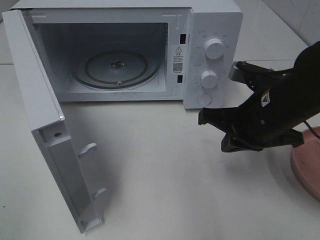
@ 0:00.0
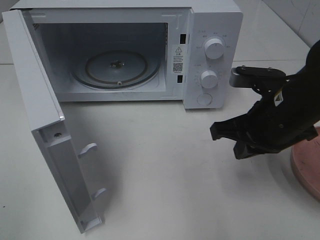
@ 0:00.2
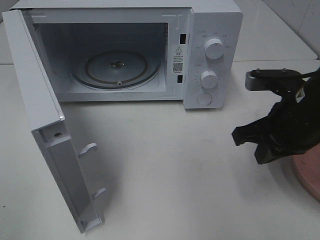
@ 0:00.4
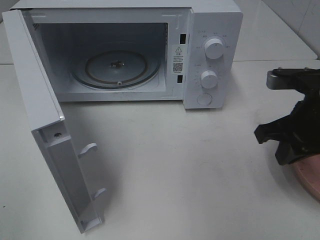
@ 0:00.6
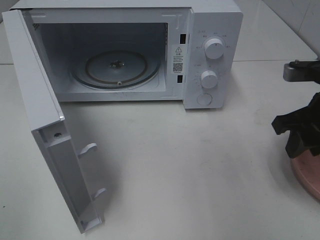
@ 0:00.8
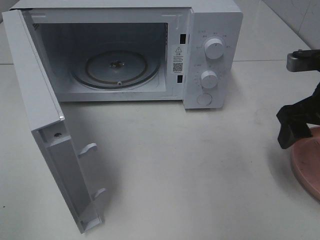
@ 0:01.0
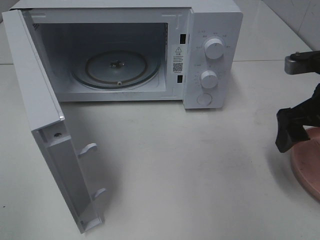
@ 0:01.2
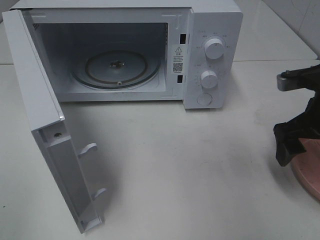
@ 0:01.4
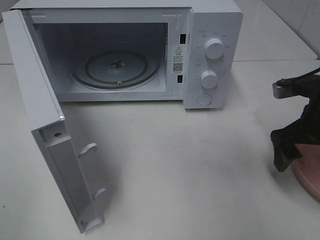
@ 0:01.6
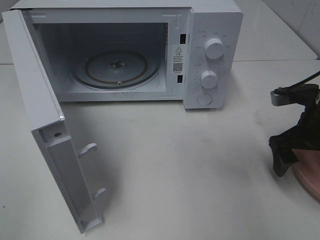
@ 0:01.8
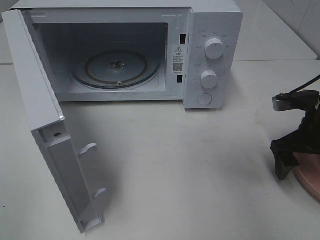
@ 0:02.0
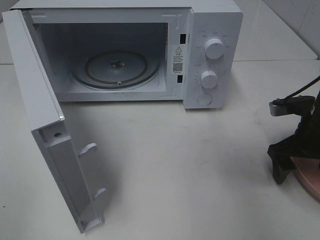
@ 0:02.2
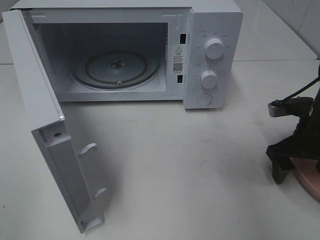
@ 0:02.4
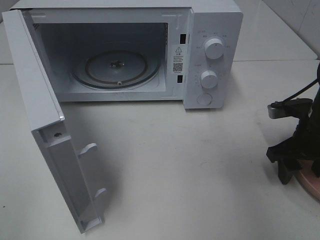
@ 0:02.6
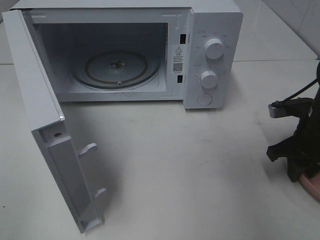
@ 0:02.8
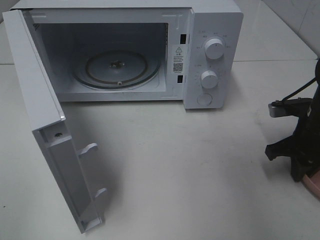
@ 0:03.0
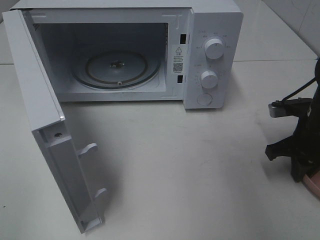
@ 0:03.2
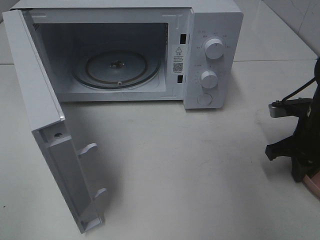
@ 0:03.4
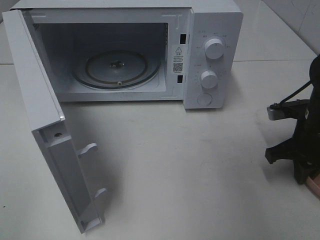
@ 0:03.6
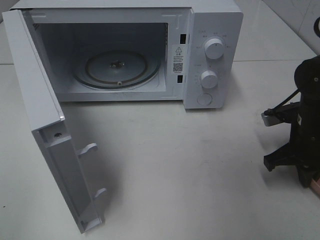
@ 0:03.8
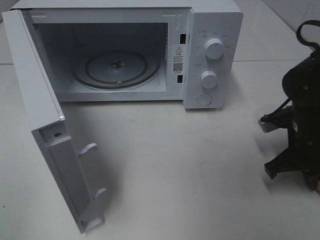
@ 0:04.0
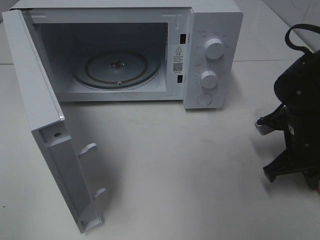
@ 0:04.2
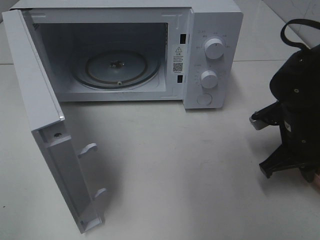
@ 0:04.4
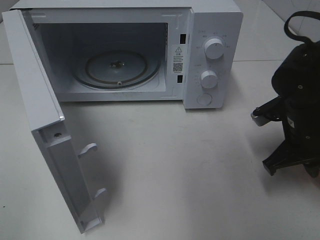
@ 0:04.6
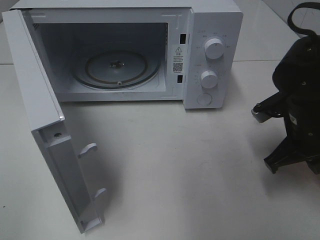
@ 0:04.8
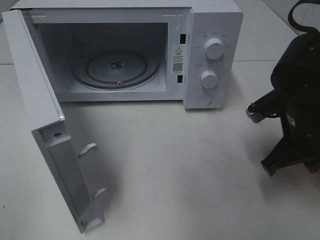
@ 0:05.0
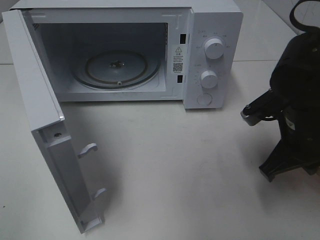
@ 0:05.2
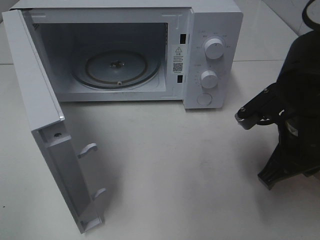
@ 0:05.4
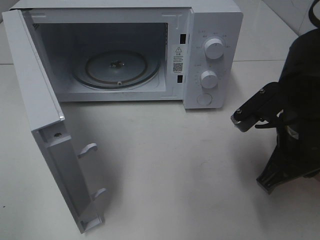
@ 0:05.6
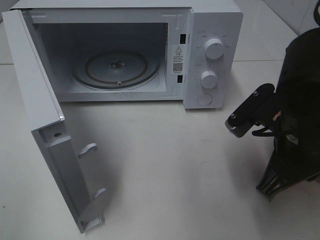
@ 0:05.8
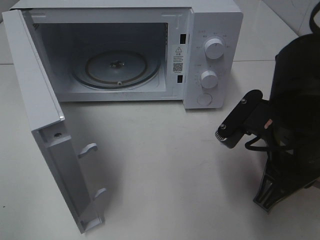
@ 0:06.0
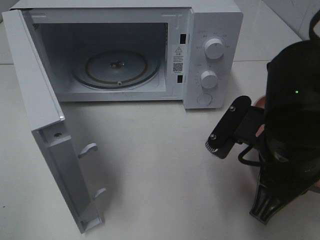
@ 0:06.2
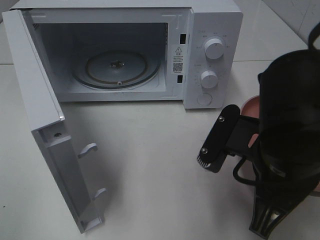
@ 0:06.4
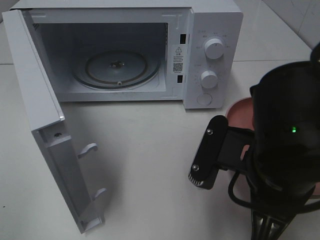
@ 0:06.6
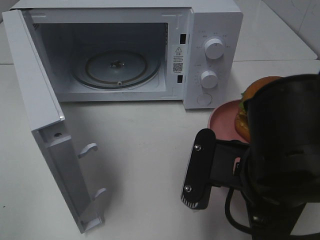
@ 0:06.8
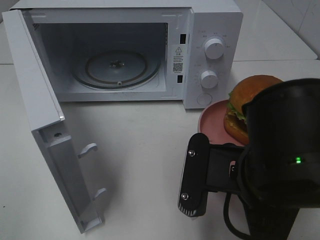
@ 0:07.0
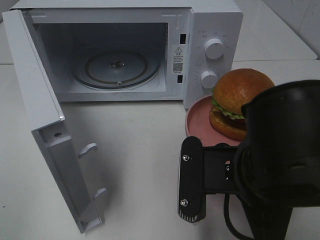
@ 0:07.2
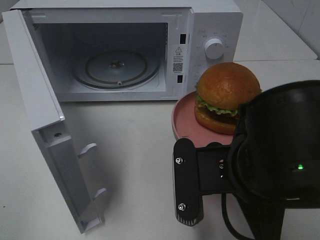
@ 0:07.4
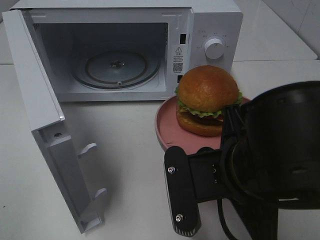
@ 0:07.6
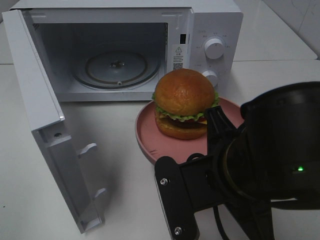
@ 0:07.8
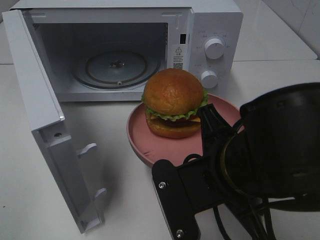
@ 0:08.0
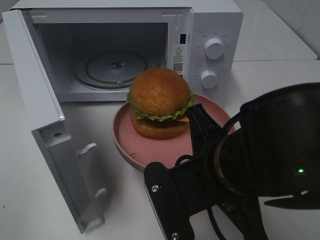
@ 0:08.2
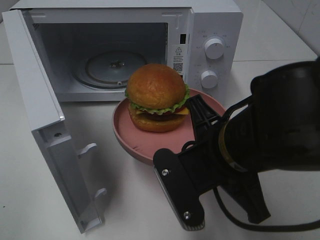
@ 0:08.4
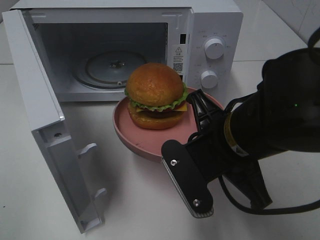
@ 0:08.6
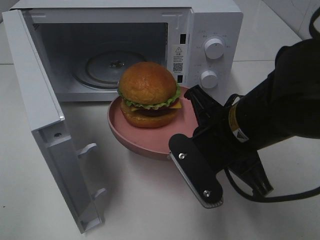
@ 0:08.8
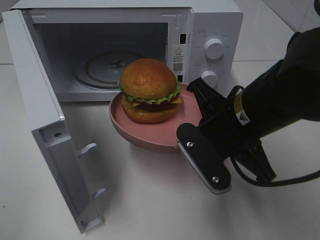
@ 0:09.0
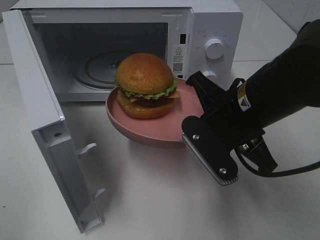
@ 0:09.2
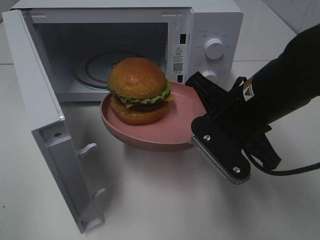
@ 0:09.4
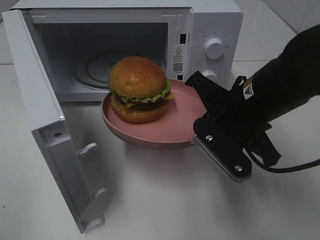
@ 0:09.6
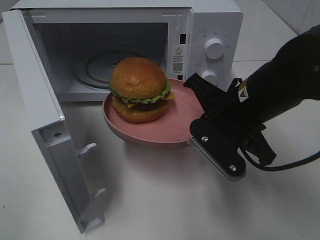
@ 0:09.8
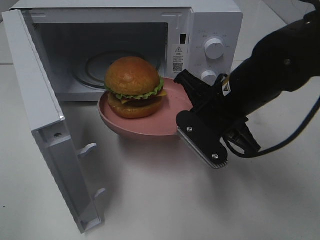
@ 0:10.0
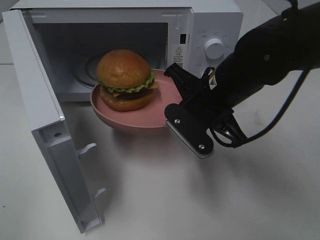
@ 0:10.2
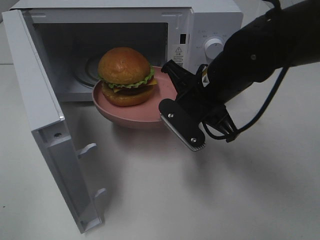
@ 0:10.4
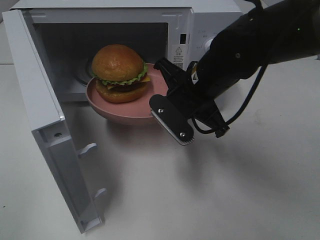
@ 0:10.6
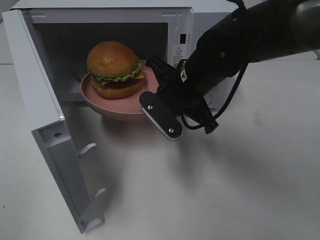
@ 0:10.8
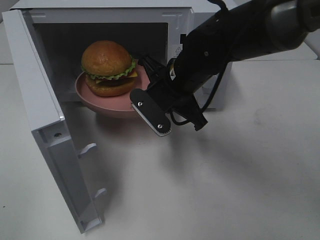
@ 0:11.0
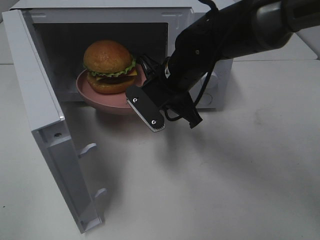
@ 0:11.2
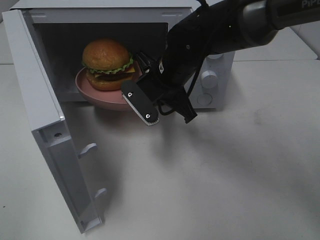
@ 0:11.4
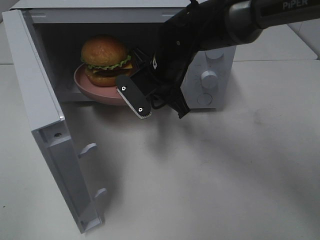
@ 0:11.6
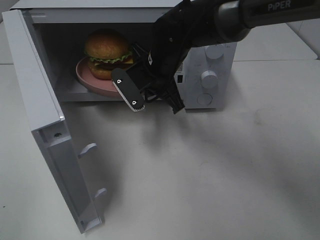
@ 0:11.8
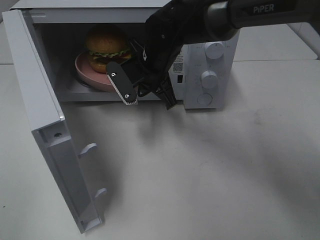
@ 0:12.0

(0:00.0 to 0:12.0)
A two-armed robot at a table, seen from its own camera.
Task of the whole recording: Heat the burger.
Step, 0:00.0 - 0:04.6: Right hand: grab the plate with the hamburger.
0:00.0 - 0:01.6: The right gripper travels to the right by approximately 10 cm, and opens its fingers.
0:01.6 - 0:03.0: The right gripper shifts roughly 5 cm downward, and closes.
0:03.0 - 0:04.4: The right gripper shifts by approximately 5 cm.
0:04.4 - 0:06.0: The right gripper travels backward, to the left and upward by roughly 15 cm.
0:06.0 - 0:07.6: The right gripper shifts roughly 5 cm to the left.
0:07.6 - 0:09.0: The right gripper moves forward, some 10 cm.
0:09.0 - 0:10.4: The right gripper shifts about 10 cm forward.
0:10.4 - 0:12.0: The right gripper travels forward and to the left by some 15 cm.

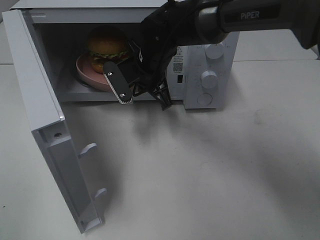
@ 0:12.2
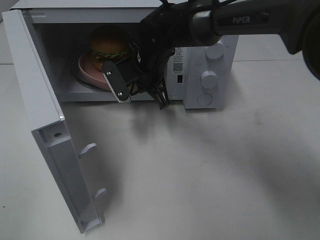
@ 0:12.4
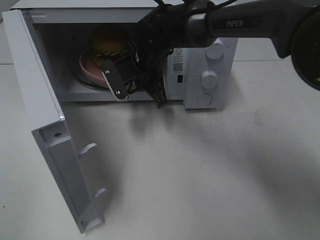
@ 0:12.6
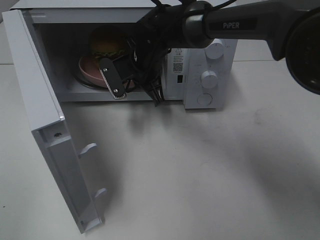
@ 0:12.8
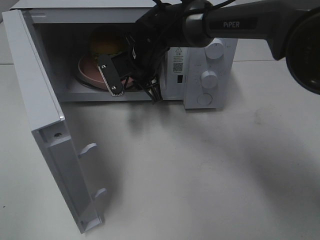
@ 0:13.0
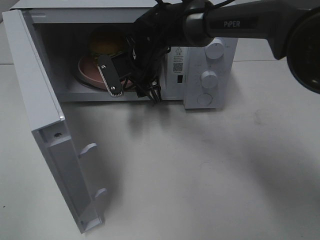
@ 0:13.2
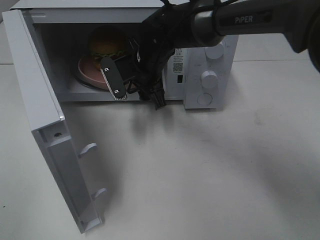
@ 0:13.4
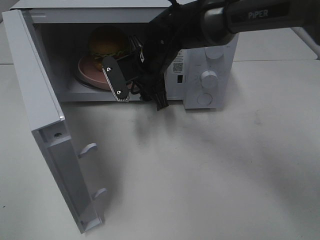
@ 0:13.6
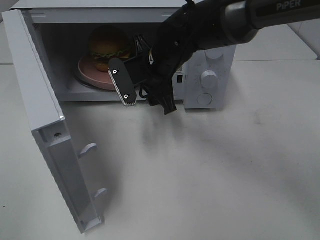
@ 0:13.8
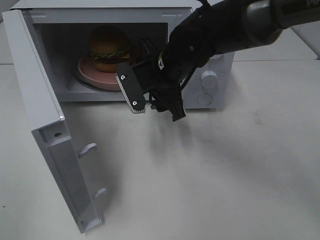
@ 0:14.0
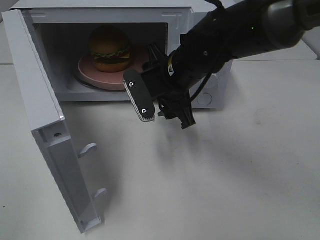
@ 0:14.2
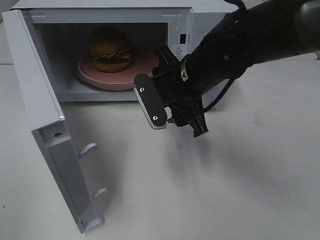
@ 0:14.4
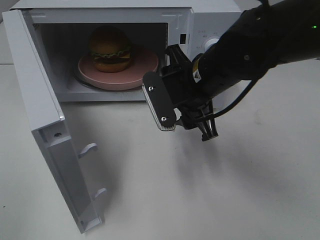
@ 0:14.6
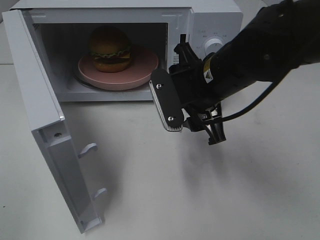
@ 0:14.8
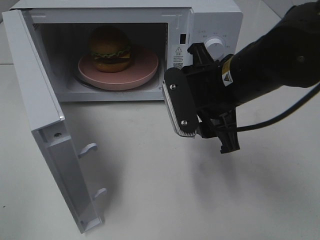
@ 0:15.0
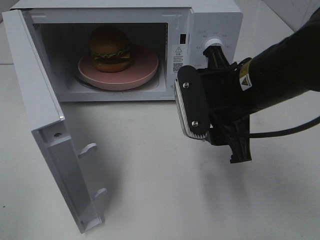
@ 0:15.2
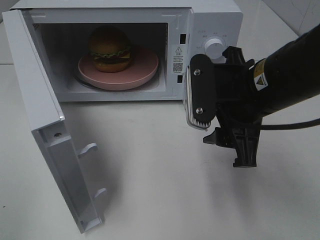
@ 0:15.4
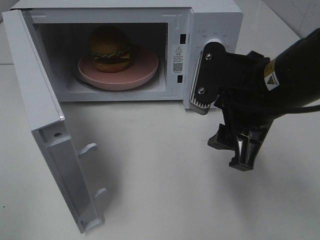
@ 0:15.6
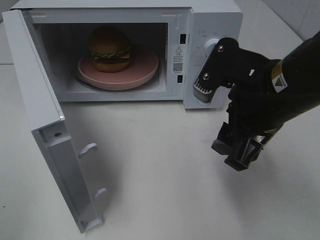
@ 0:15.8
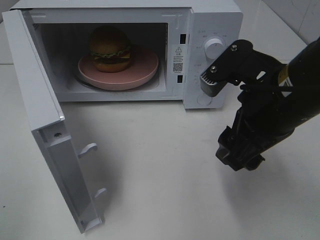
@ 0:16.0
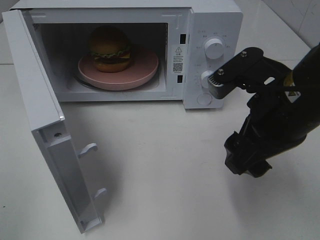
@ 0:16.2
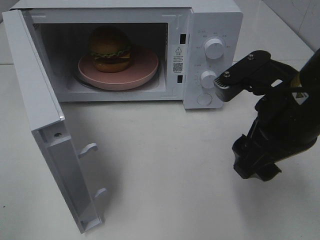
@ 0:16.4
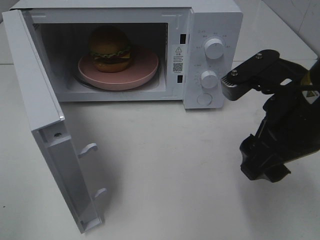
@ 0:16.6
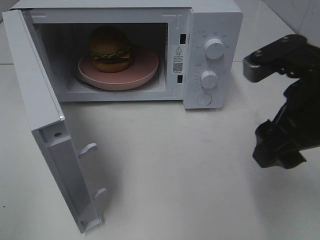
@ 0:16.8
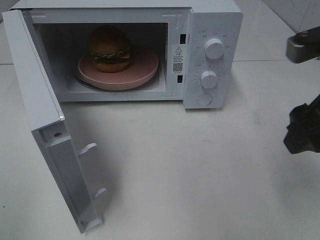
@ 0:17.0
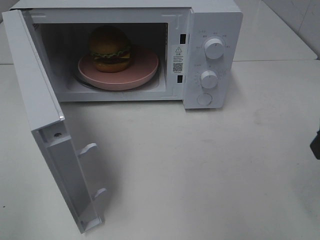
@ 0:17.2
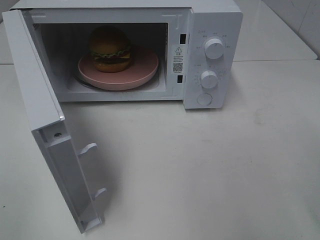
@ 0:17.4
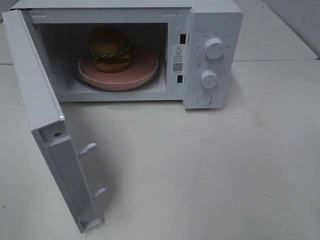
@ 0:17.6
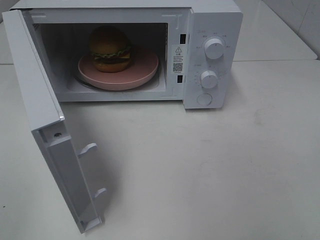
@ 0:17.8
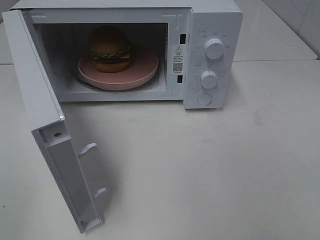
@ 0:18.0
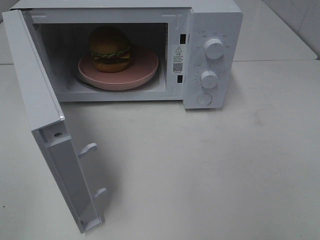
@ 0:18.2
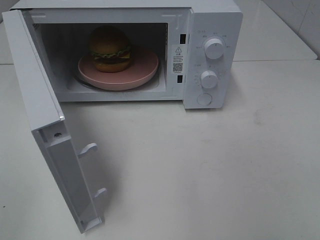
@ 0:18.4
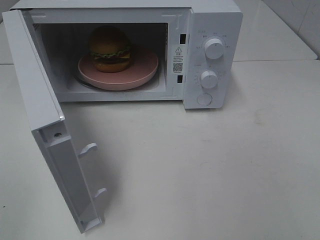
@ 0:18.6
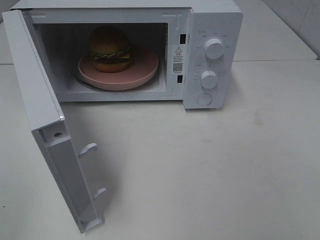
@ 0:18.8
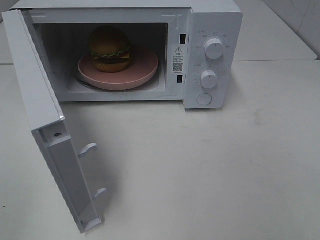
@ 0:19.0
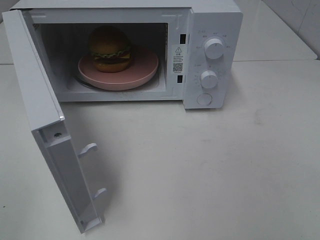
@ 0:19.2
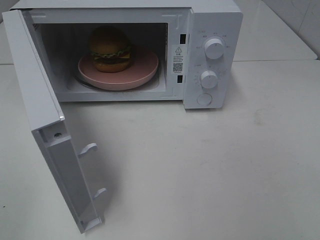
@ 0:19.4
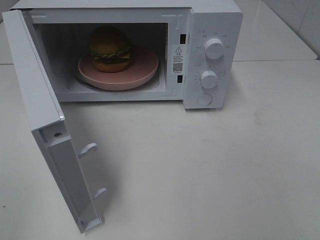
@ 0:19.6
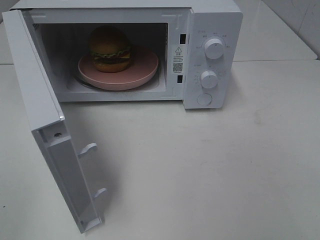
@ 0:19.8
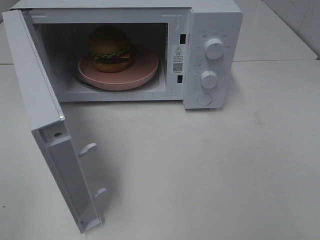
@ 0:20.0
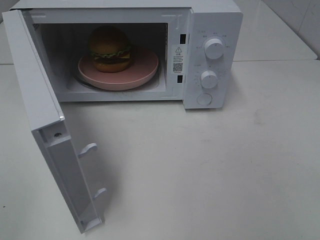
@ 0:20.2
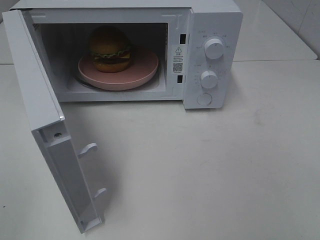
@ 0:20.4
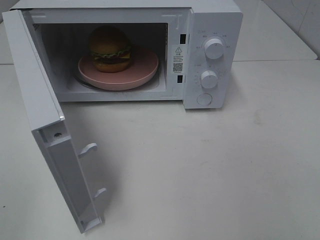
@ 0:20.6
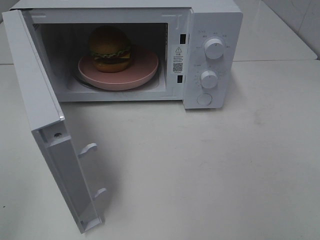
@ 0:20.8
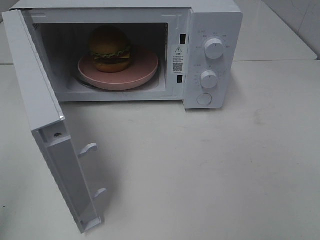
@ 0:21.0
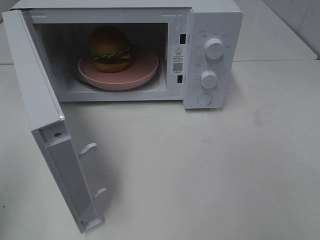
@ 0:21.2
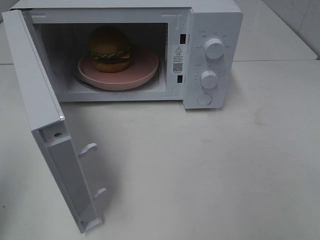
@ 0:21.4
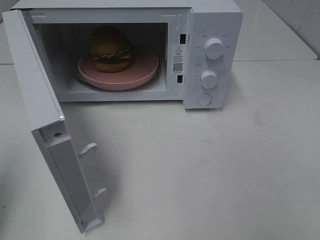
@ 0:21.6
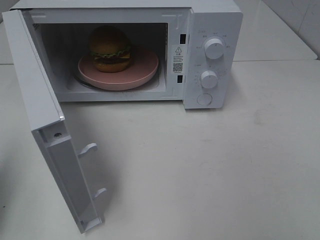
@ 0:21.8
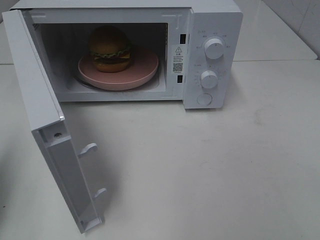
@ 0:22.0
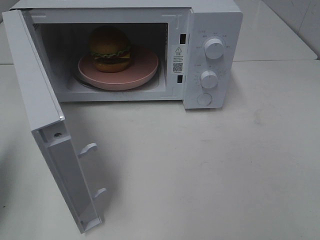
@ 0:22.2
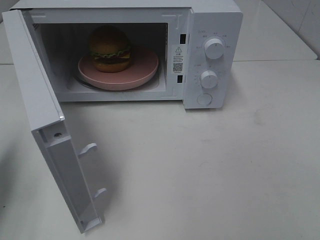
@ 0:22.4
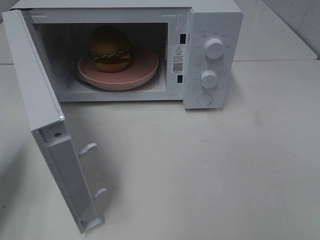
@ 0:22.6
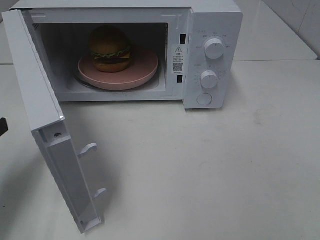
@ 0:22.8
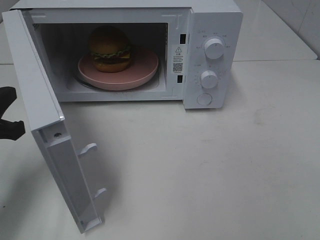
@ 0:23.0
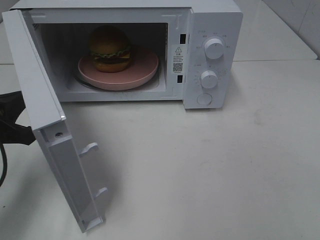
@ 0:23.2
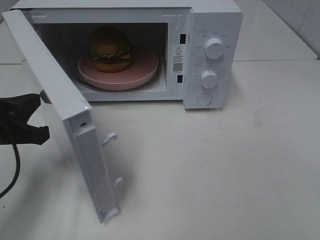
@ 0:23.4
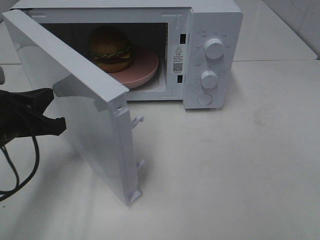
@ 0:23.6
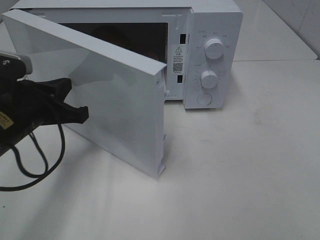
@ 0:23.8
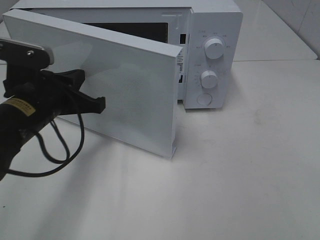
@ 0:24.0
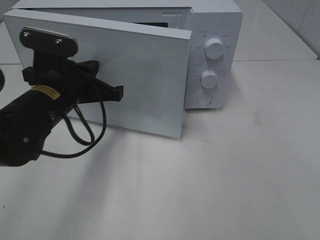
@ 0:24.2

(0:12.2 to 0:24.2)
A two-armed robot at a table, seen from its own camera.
Task of the whole recording: Heat the burger.
0:12.2 - 0:13.8: The right gripper opens its fingers.
0:13.8 - 0:15.2: The right gripper moves backward and to the right, some 15 cm.
0:15.2 - 0:16.6: The right gripper moves some 5 cm.
0:16.6 - 0:18.2: The right gripper shifts some 20 cm backward and to the right.
0:21.2 - 0:22.6: The left gripper goes about 15 cm forward and downward.
0:22.6 - 0:24.2: The left gripper shifts about 20 cm to the right and forward.
